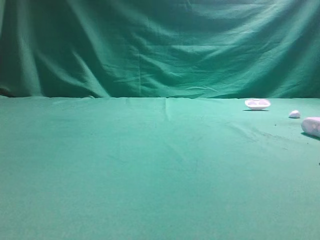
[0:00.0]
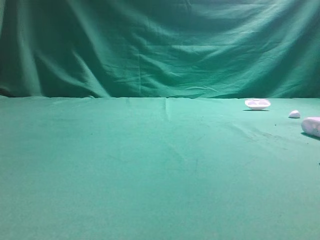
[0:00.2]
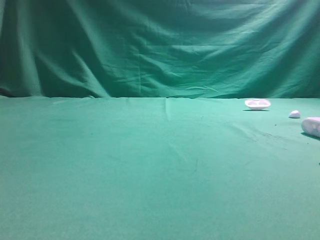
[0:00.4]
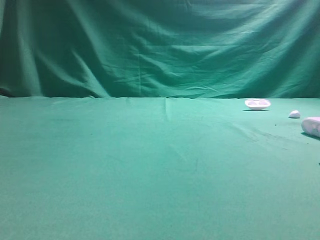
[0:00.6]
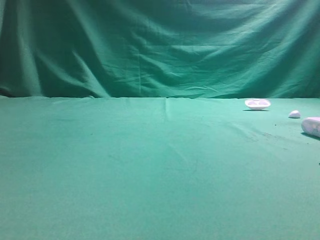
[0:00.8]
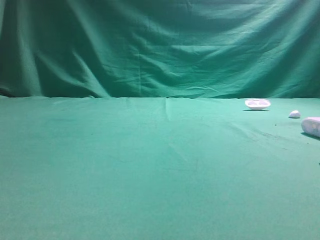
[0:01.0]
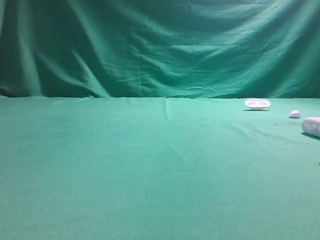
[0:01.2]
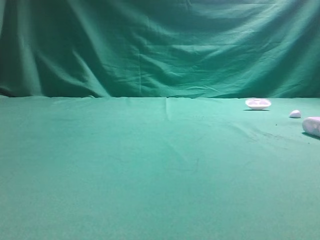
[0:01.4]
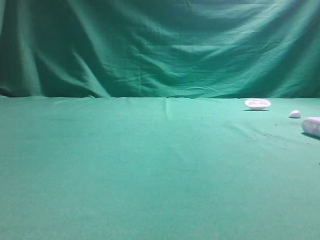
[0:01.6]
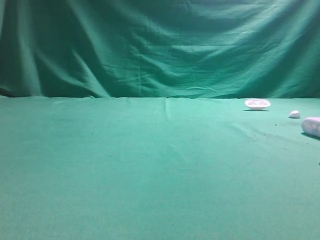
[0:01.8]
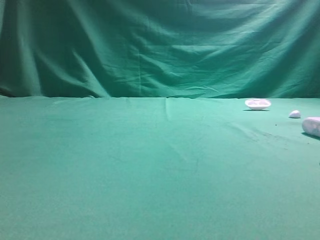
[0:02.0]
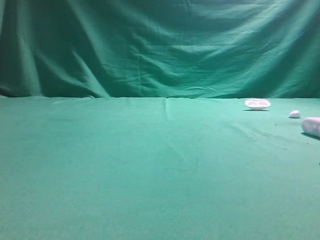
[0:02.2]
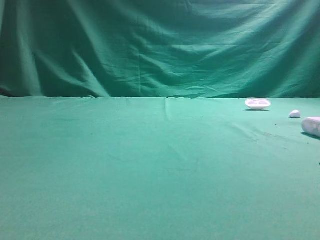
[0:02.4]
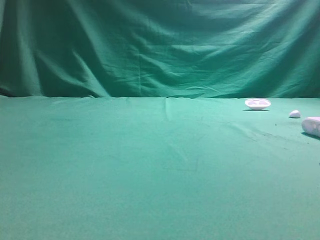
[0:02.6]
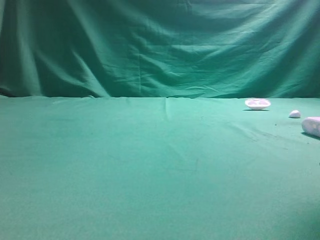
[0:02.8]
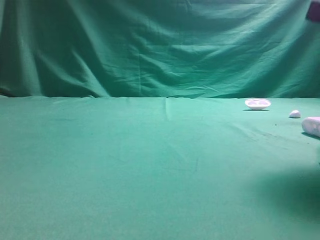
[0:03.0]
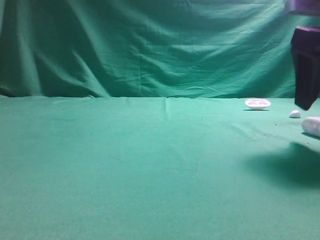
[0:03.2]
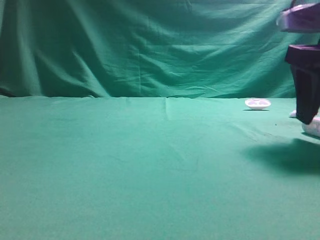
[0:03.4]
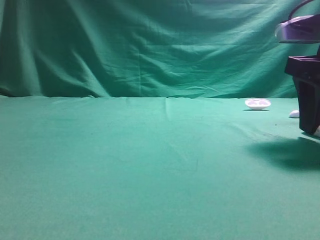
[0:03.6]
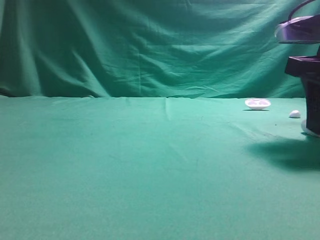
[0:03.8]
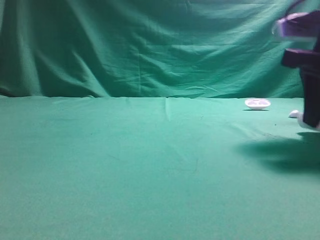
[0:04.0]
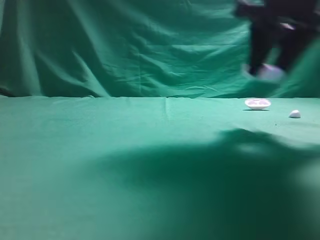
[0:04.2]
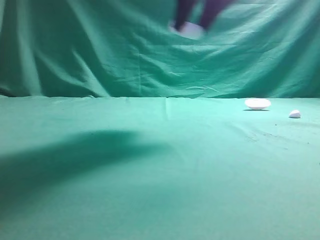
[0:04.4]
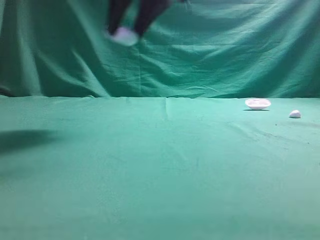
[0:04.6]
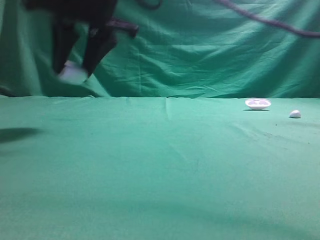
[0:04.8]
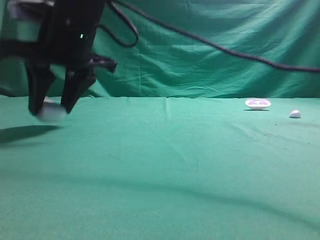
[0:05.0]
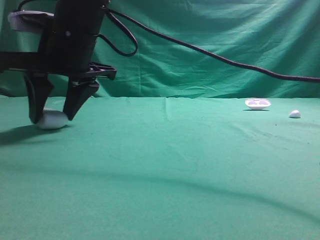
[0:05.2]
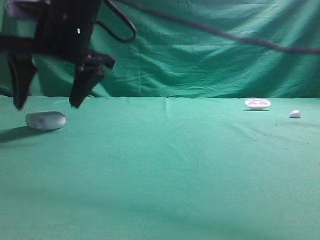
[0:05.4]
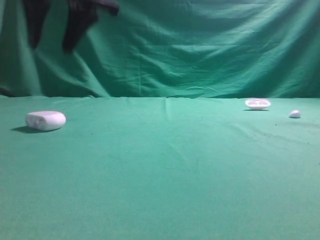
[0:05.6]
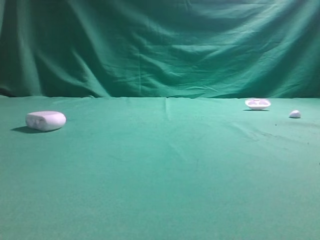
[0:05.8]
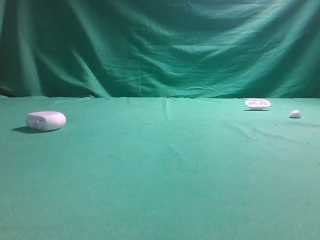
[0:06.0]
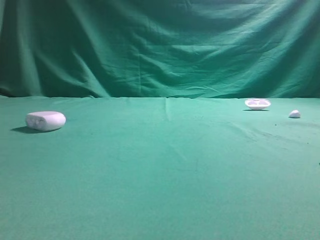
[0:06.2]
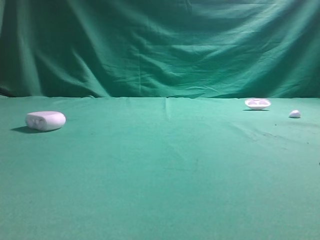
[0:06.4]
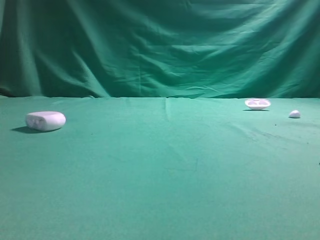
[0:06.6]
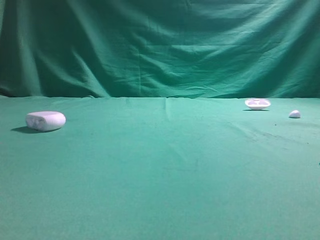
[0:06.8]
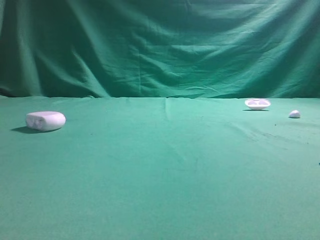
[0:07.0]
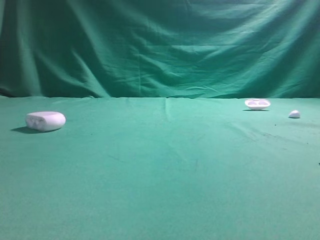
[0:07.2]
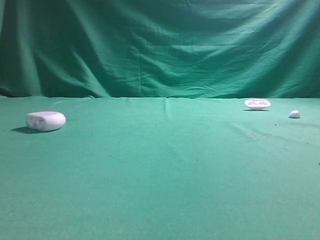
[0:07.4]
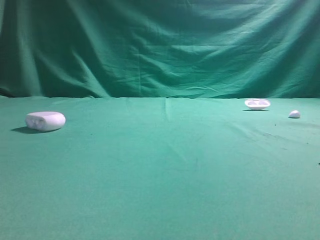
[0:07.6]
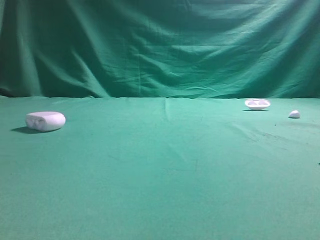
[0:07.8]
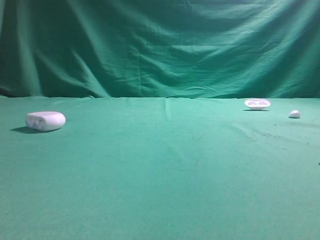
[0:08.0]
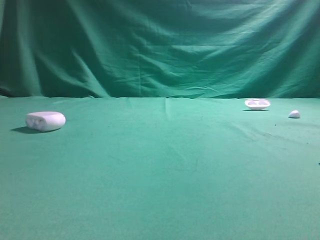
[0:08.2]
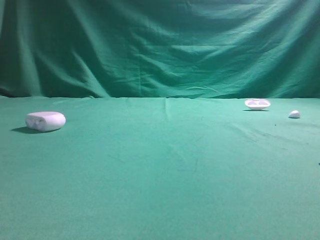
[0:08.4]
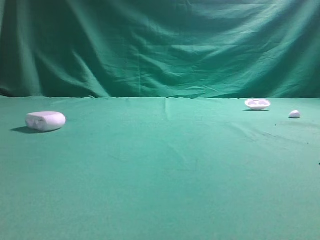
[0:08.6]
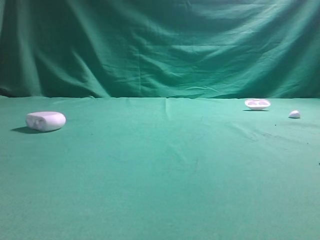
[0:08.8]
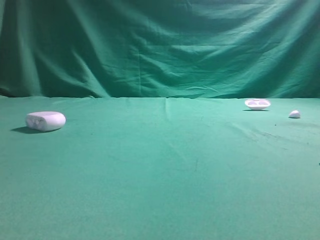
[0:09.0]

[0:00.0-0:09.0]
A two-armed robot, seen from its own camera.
Step, 0:00.0 to 0:04.2: Grasp the Bluetooth earphone case.
Step, 0:04.4 to 0:05.4: Place bluetooth earphone case on the left side of the table.

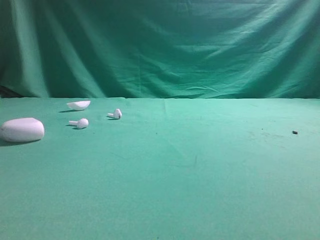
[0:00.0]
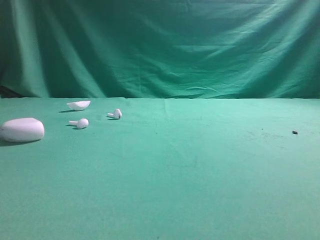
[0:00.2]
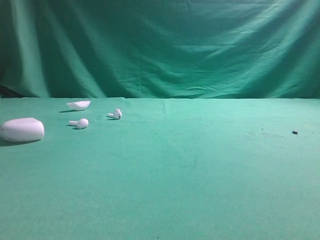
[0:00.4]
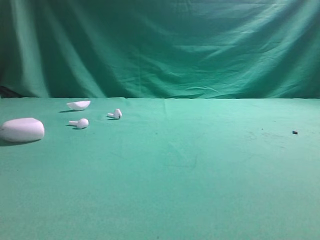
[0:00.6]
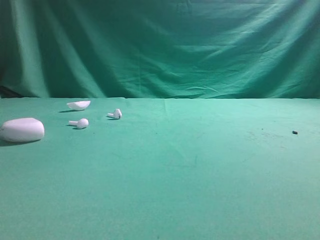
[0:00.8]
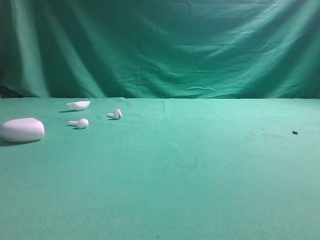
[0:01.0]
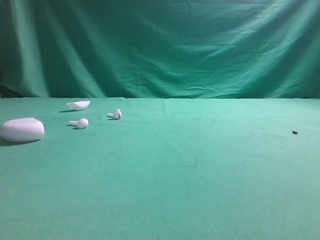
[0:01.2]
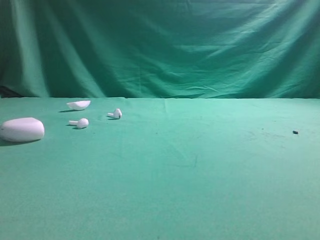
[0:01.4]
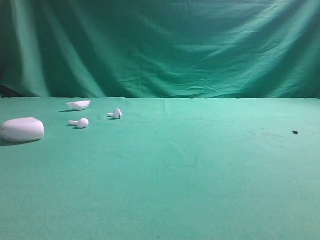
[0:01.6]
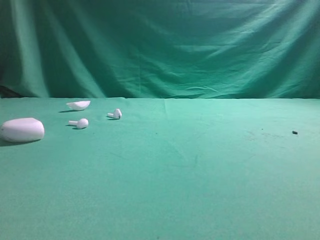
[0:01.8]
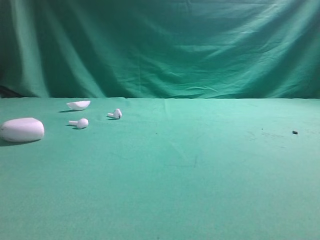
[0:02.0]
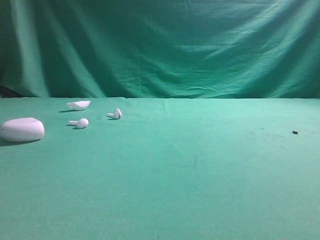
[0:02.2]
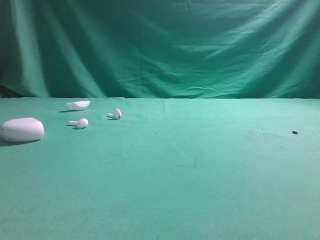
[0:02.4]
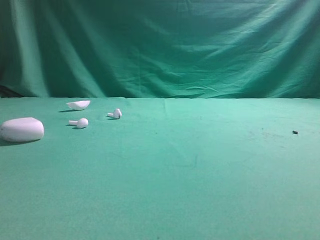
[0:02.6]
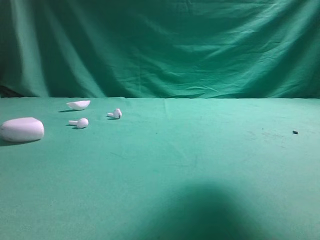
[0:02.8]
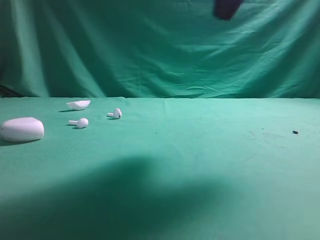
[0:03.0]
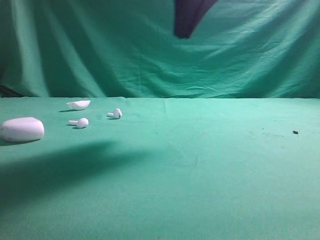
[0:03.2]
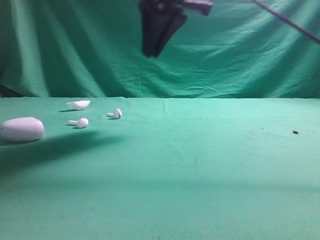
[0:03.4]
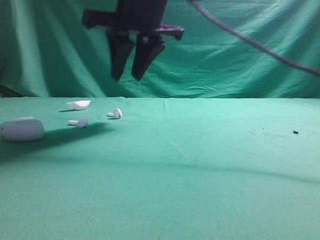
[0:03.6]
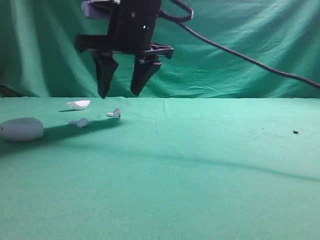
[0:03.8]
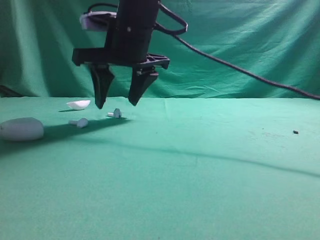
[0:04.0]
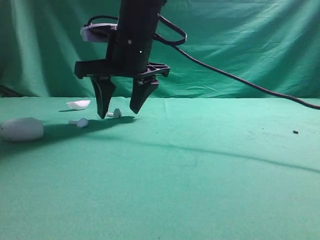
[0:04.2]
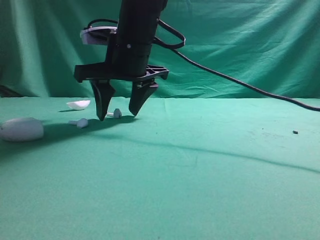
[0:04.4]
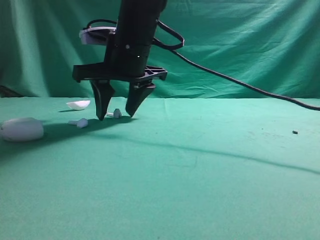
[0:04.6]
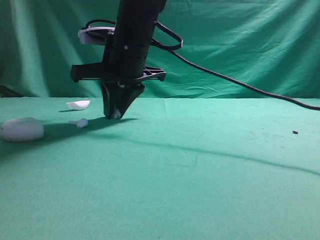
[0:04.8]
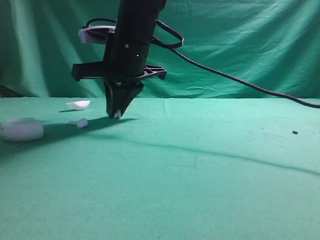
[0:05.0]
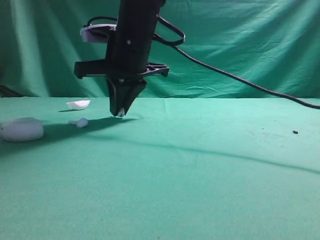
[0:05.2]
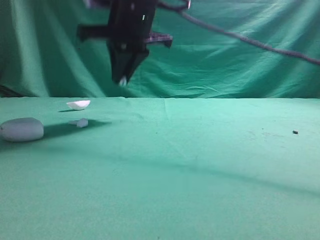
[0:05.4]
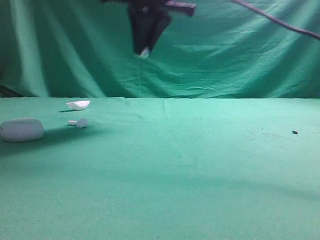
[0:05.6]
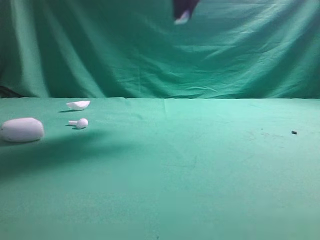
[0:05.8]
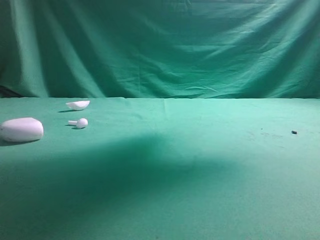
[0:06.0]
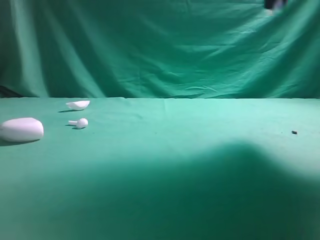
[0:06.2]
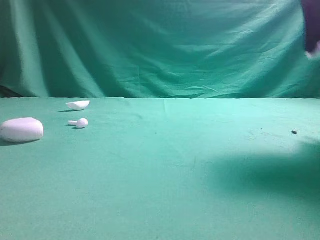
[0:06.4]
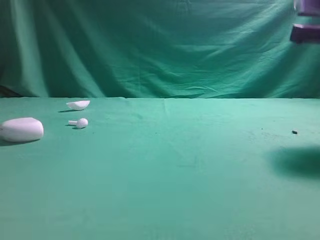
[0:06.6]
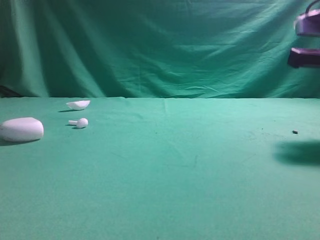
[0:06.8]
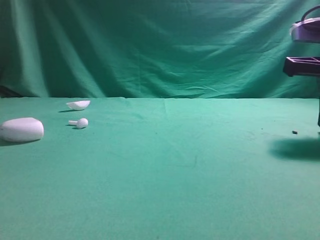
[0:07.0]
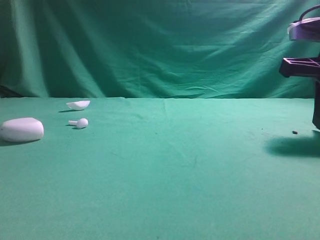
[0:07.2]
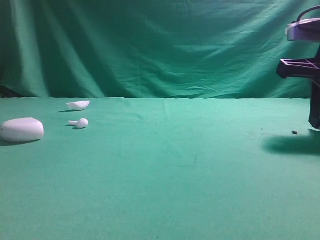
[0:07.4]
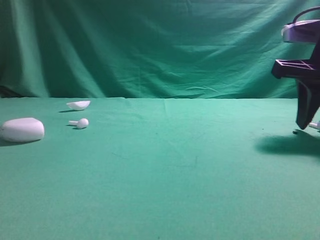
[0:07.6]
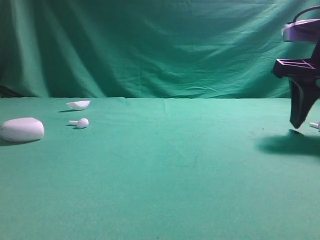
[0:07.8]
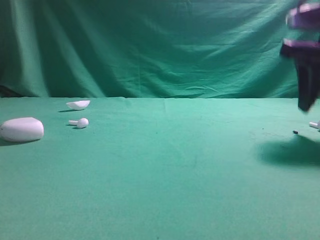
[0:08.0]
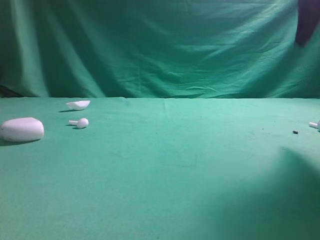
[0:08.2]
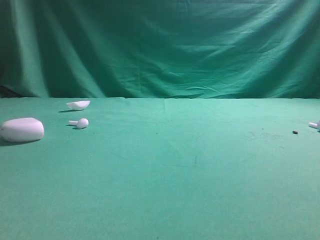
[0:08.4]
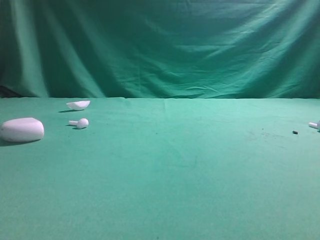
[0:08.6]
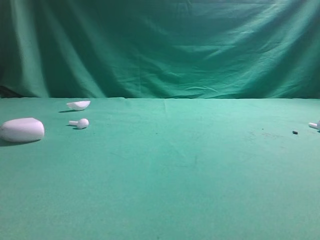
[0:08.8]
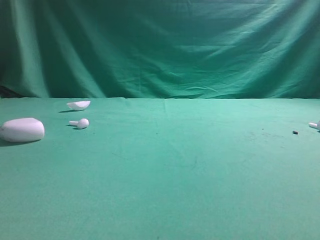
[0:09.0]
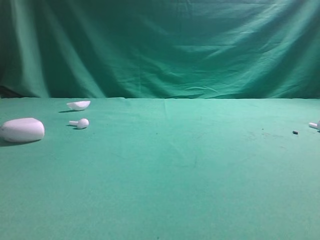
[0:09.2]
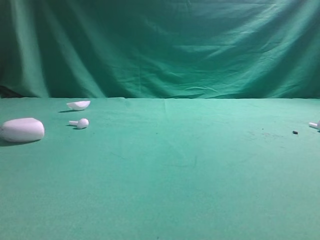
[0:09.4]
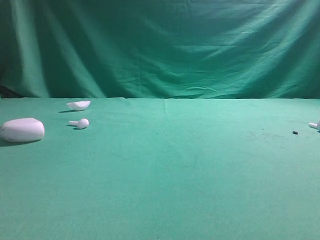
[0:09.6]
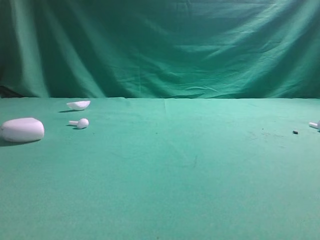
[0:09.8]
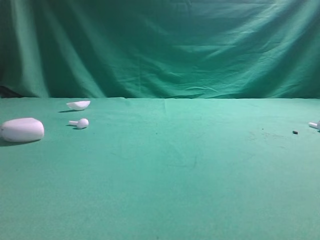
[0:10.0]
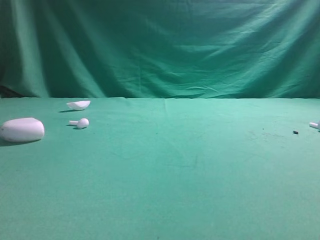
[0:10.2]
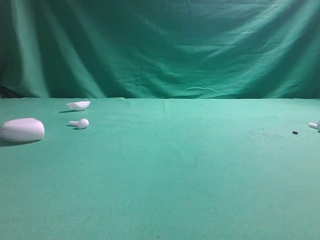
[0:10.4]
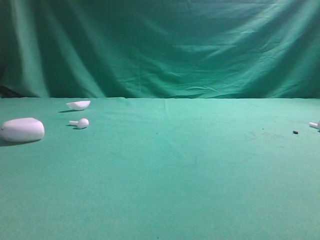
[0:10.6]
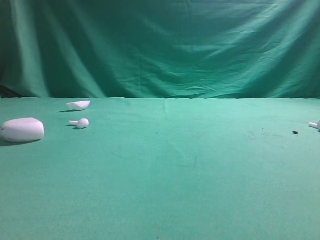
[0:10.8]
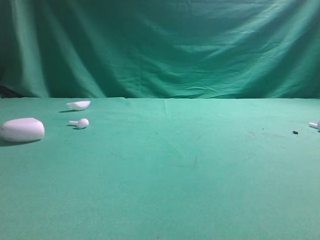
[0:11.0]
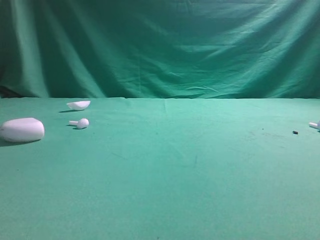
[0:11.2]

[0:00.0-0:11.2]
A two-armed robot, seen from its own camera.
Step, 0:00.0 to 0:05.2: Grasp the Bluetooth earbud.
Step, 0:05.4 to 0:08.0: Place bluetooth earbud on the right side of the table.
